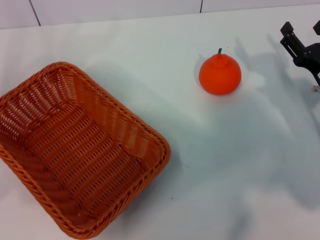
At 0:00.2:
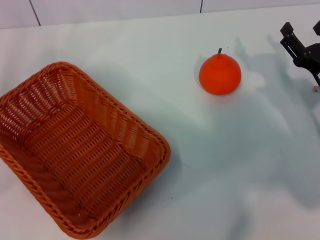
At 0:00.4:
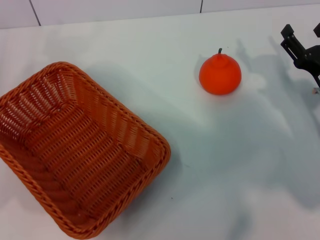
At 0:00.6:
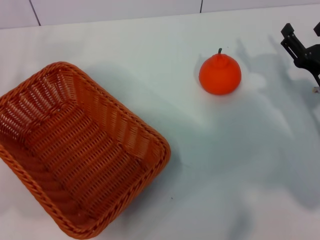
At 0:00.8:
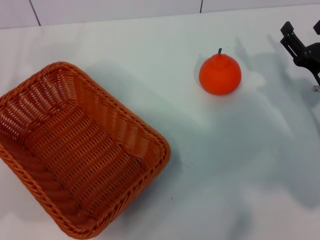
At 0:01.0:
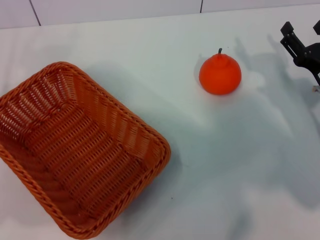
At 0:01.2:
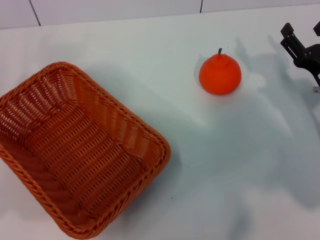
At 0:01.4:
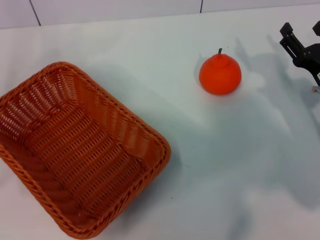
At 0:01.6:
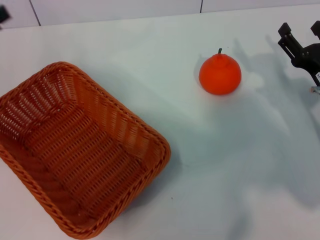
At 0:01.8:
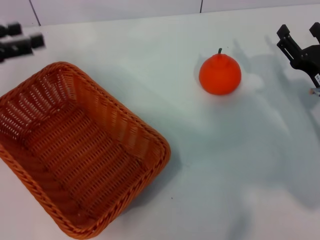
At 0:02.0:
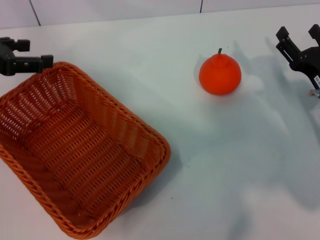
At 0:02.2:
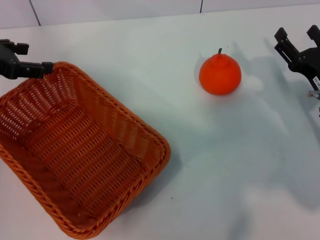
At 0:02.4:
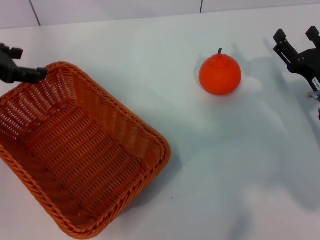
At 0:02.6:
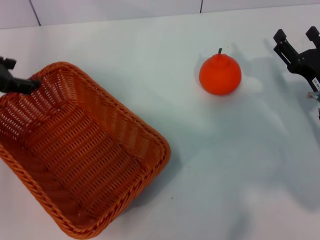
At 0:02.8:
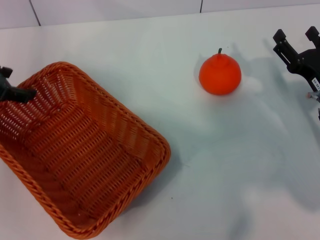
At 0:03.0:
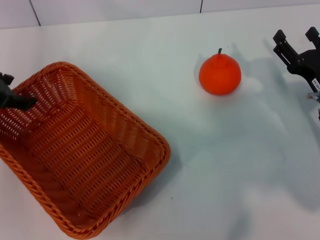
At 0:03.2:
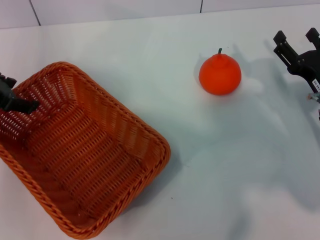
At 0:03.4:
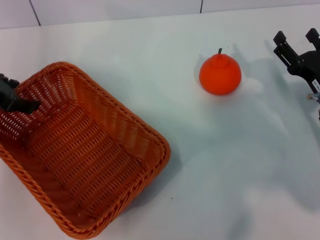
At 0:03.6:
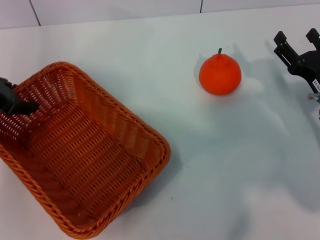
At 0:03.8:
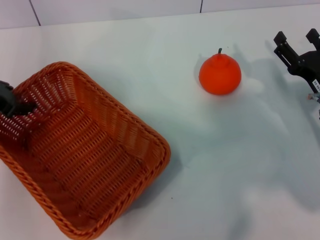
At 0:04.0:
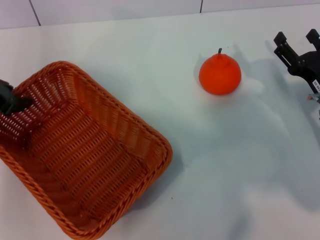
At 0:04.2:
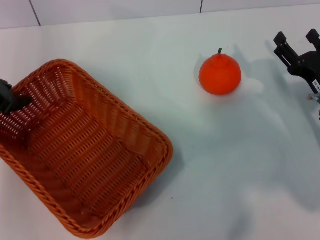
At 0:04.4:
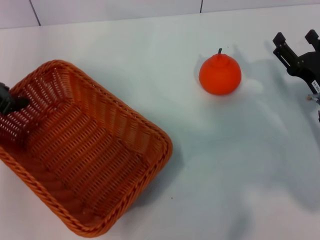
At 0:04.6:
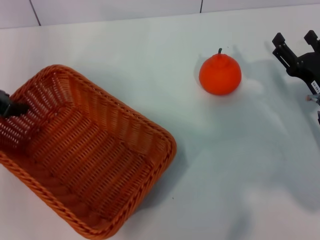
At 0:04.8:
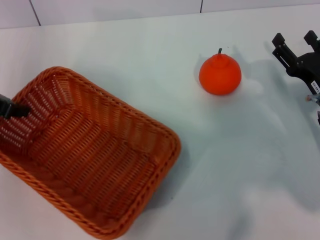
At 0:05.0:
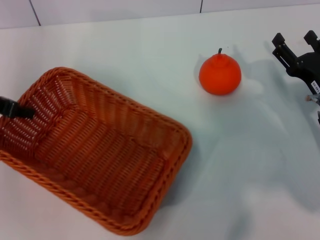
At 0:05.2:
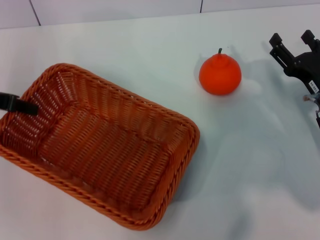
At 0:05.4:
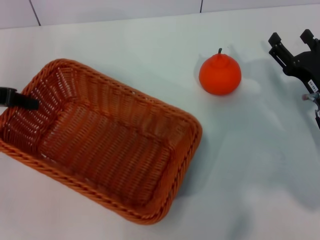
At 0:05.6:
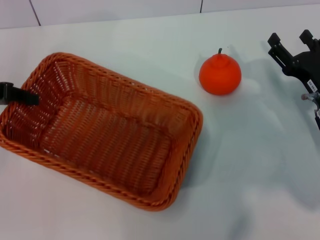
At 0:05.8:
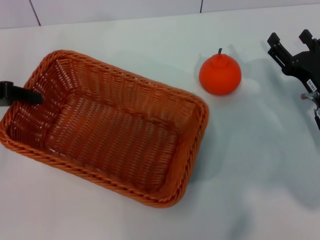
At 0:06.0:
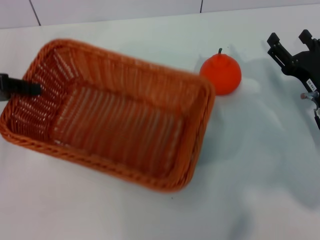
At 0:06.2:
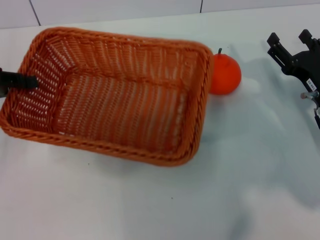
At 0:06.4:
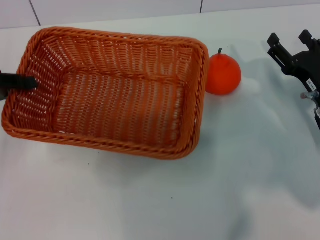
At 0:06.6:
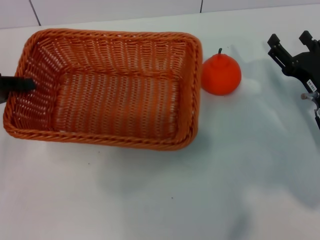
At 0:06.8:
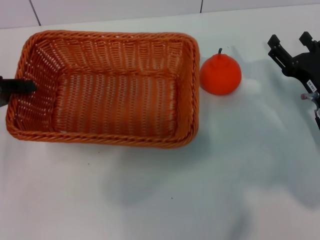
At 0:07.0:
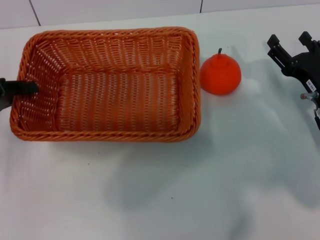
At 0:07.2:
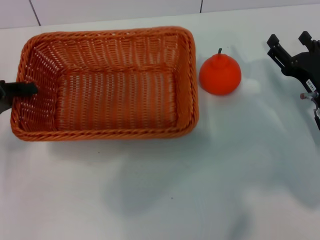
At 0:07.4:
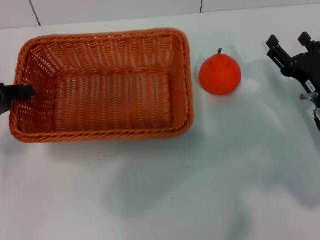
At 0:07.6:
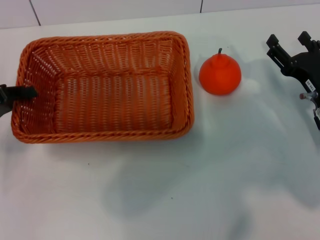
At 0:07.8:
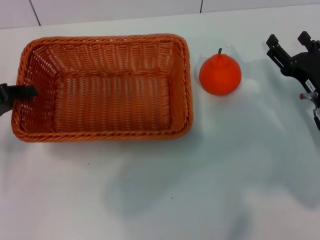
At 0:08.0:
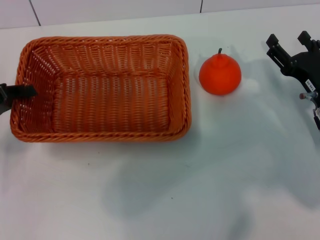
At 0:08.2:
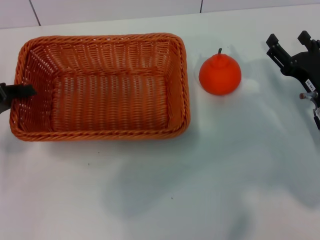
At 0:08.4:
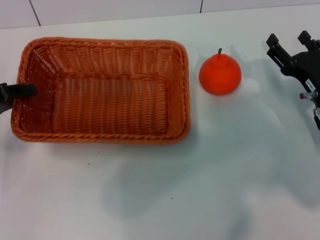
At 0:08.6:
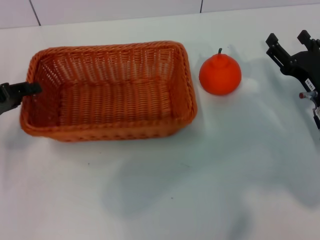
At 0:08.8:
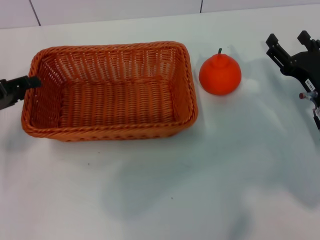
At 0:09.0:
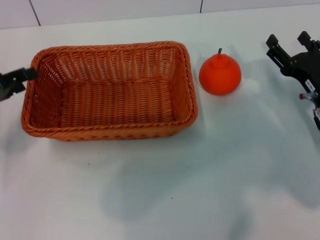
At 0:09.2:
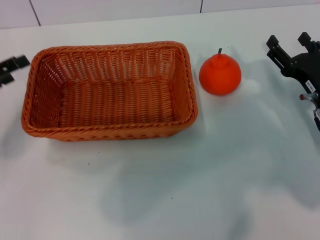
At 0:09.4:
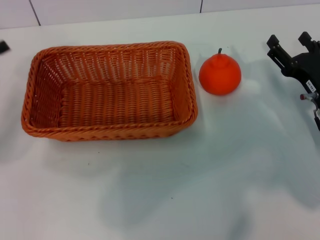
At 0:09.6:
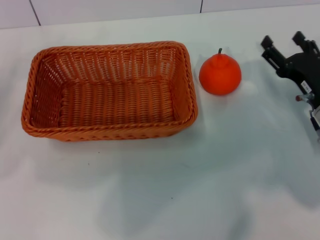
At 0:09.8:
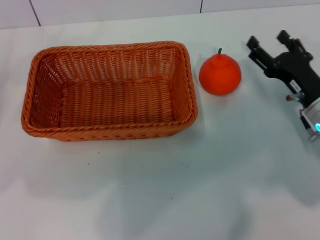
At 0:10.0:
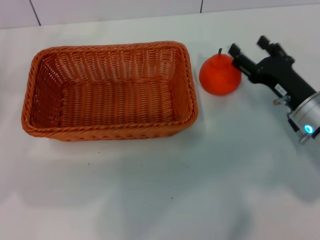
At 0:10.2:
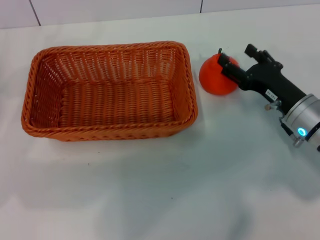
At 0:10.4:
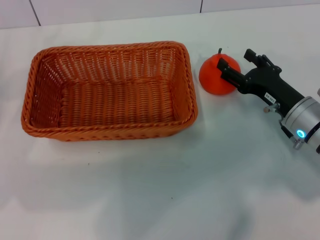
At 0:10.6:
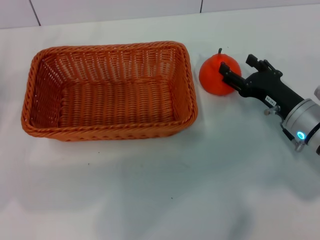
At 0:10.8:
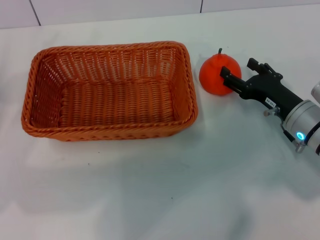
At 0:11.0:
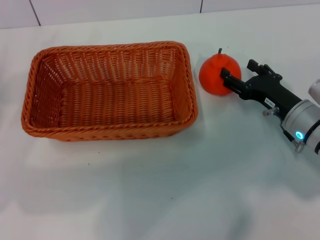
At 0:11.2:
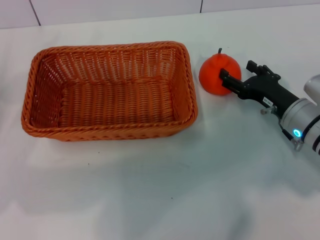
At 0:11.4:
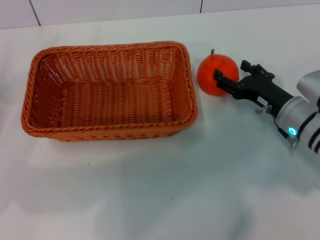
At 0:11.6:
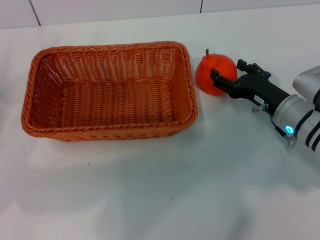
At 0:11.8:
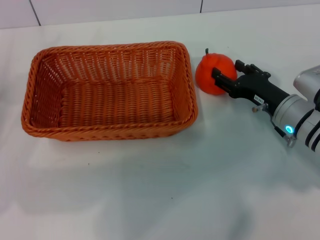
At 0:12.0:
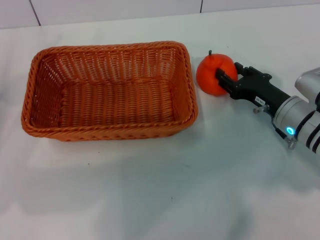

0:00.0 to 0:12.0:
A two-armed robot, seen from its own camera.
Task of the whole recording: the left gripper pick up the yellow basket and place it horizontally in the middle of the table, the right gripper pick up the orange and place it into the yellow basket.
Step, 0:00.0 to 0:05.6: Pick up the light basket with the left gripper.
Step, 0:05.8 to 0:09.0: Place the light basket in the center of view with the left gripper.
0:01.6 to 0:03.0: The left gripper heads forward, covering about 5 cm.
0:03.0 to 0:04.4: The left gripper closes up.
0:06.0 to 0:07.6: The left gripper moves downward, approximately 5 cm.
0:07.6 to 0:09.0: The left gripper opens its fingers.
0:09.0 to 0:10.4: The left gripper opens its fingers.
0:10.4 to 0:12.0: The grippers move only a little.

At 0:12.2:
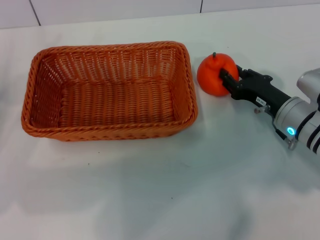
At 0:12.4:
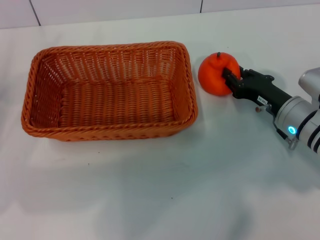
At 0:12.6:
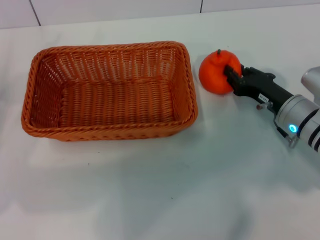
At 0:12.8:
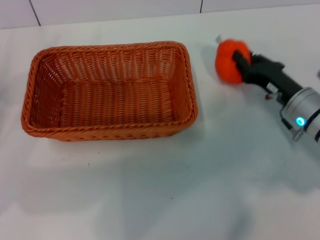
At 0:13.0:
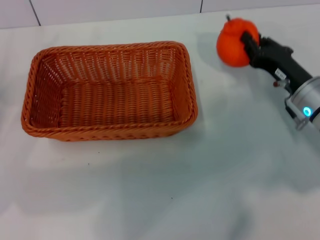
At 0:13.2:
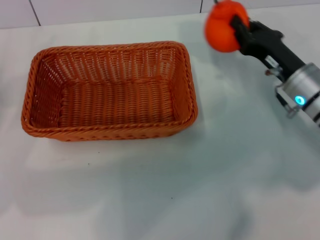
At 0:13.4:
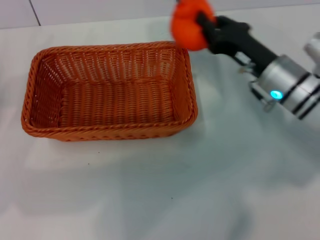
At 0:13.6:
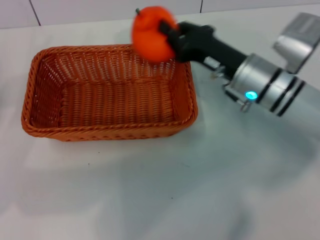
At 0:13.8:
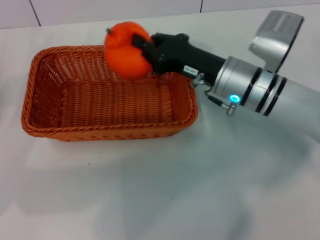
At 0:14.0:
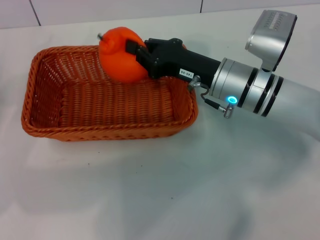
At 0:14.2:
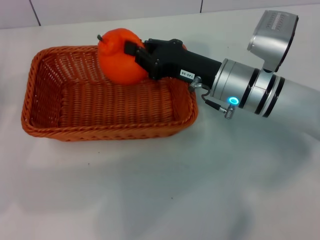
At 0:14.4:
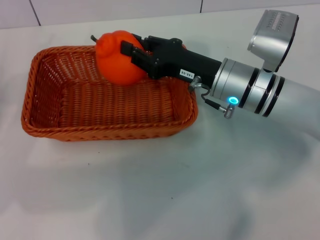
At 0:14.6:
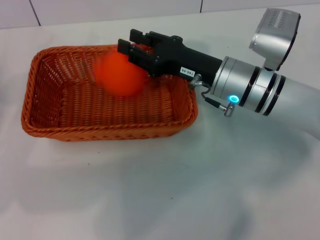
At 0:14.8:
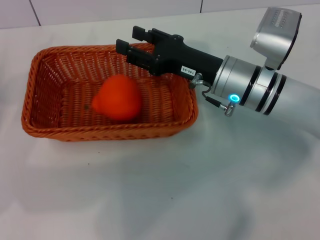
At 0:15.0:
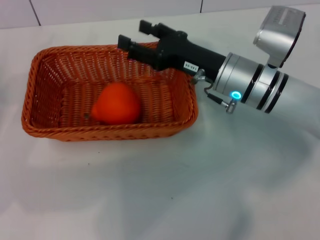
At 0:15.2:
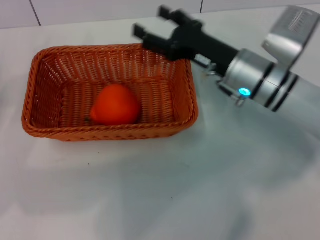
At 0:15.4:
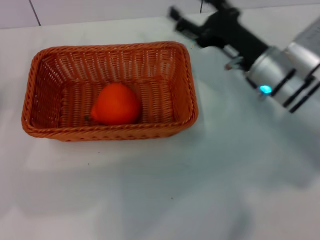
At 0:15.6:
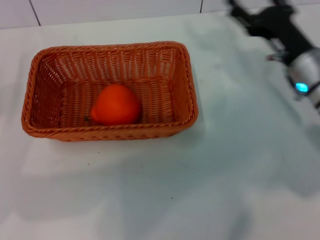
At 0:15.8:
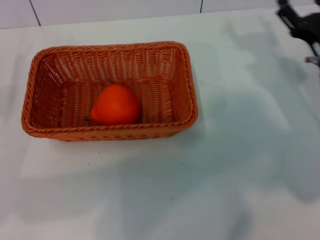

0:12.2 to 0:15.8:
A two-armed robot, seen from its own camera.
Task of the whole recording: the left gripper pick up the yellow basket and place it horizontally in the middle of the table, the right gripper pick up the orange and place it into the yellow basket.
Step, 0:13.2 to 0:14.8: Place the orange into the light basket with the right gripper.
0:12.2 to 0:14.0: The right gripper goes roughly 15 cm to the left and upward, and closes.
0:14.0 to 0:15.8: The right gripper shifts roughly 15 cm to the right, and opens its fingers.
